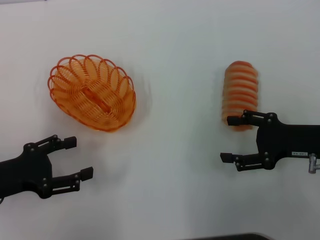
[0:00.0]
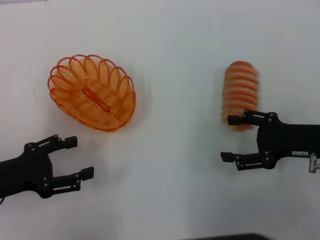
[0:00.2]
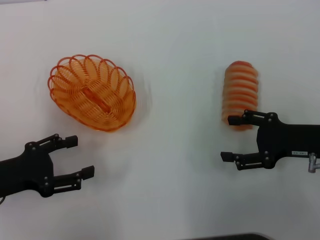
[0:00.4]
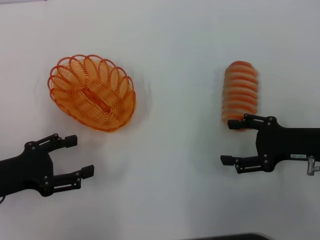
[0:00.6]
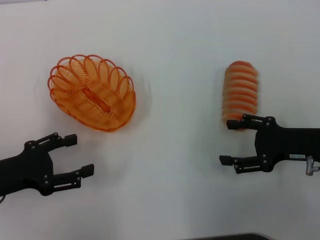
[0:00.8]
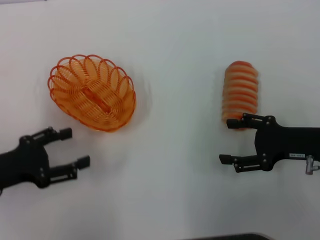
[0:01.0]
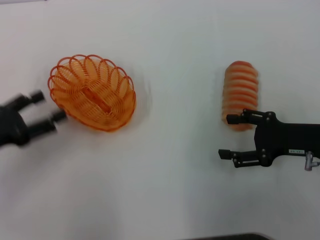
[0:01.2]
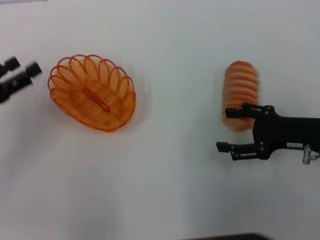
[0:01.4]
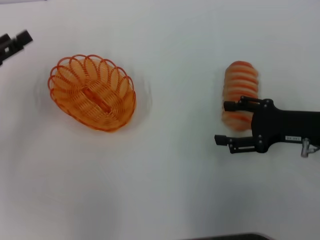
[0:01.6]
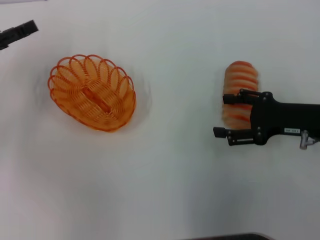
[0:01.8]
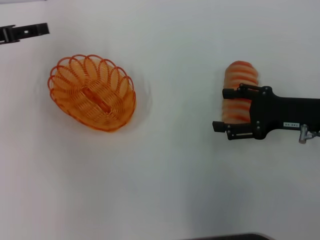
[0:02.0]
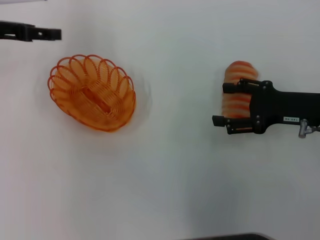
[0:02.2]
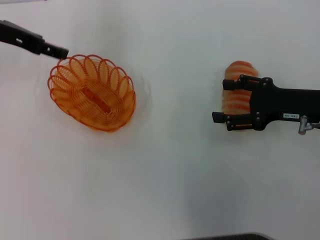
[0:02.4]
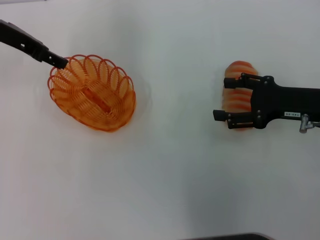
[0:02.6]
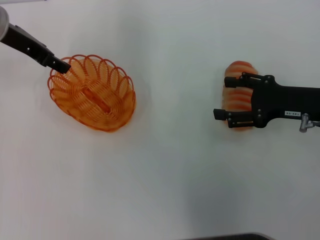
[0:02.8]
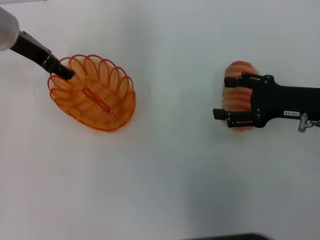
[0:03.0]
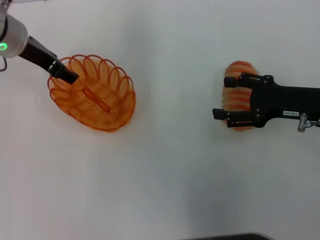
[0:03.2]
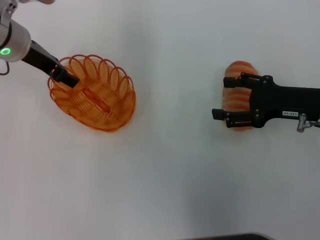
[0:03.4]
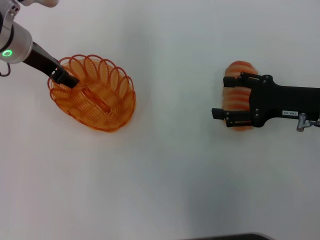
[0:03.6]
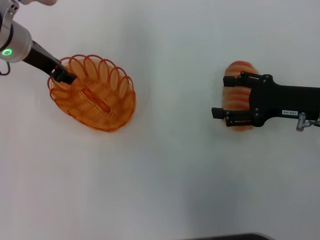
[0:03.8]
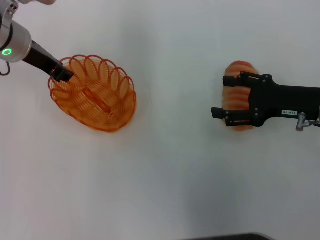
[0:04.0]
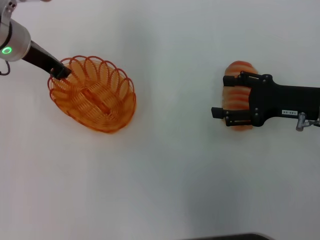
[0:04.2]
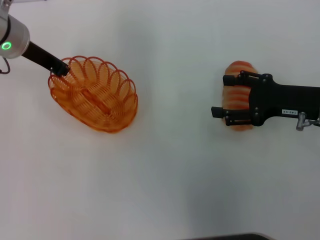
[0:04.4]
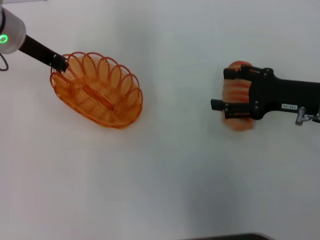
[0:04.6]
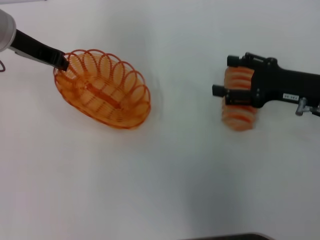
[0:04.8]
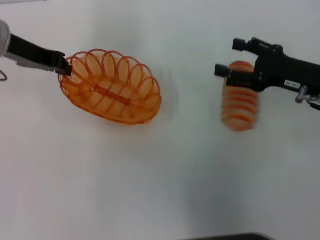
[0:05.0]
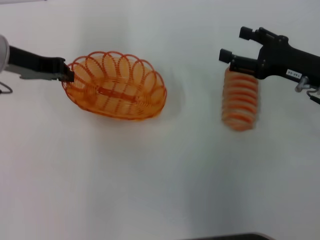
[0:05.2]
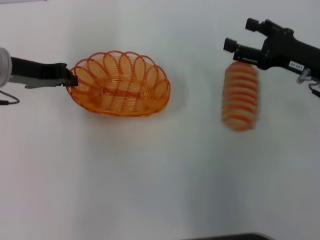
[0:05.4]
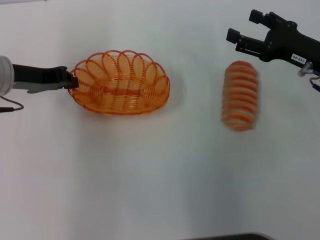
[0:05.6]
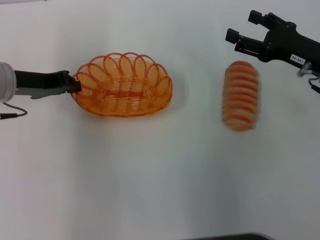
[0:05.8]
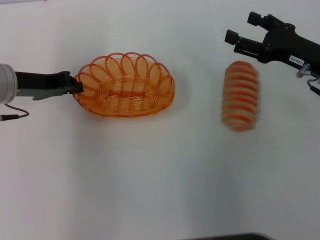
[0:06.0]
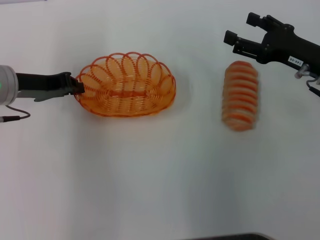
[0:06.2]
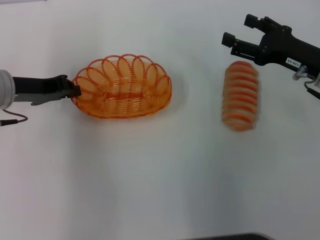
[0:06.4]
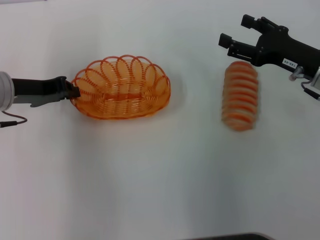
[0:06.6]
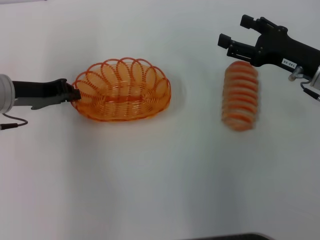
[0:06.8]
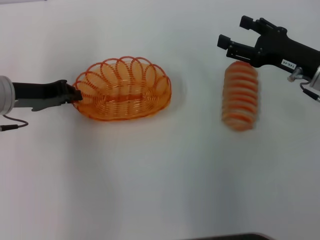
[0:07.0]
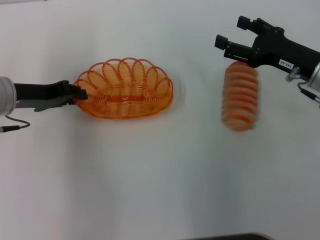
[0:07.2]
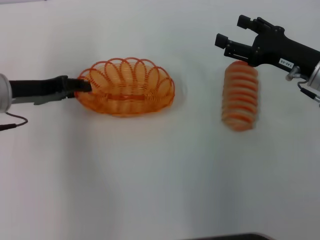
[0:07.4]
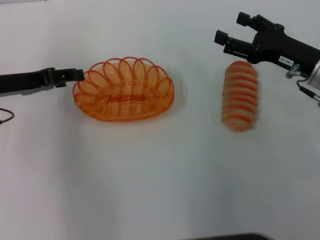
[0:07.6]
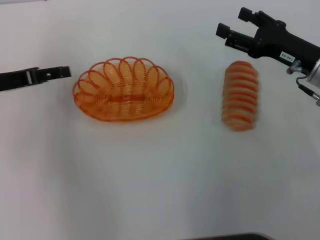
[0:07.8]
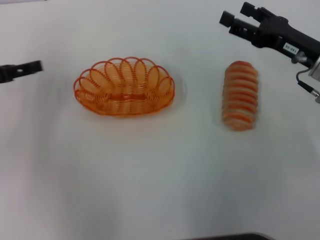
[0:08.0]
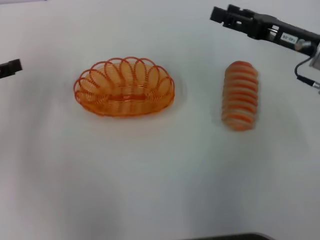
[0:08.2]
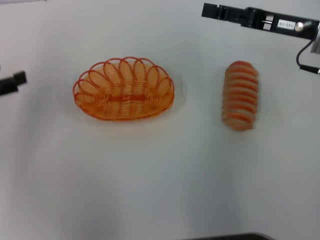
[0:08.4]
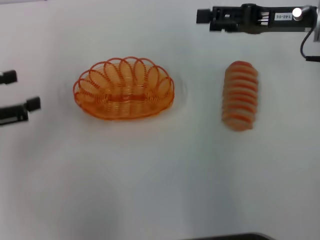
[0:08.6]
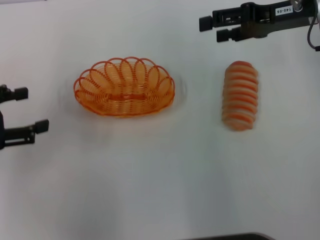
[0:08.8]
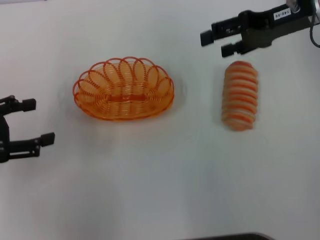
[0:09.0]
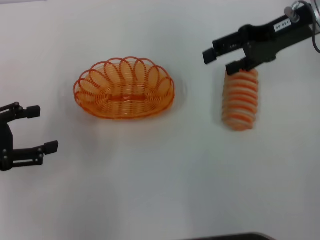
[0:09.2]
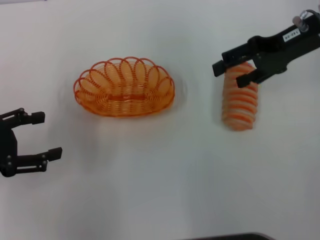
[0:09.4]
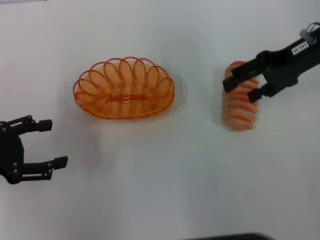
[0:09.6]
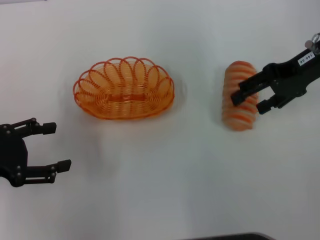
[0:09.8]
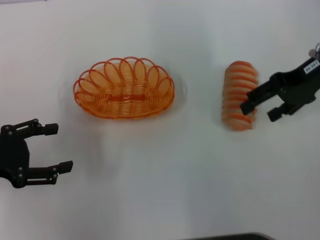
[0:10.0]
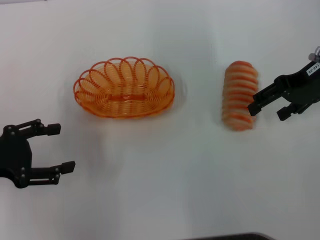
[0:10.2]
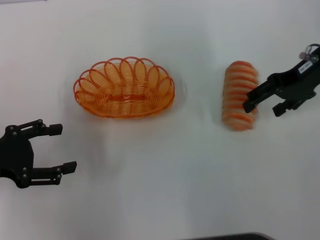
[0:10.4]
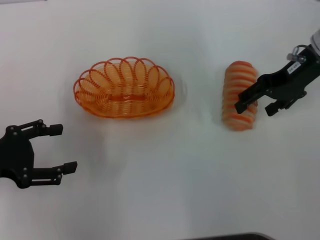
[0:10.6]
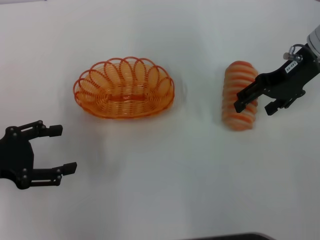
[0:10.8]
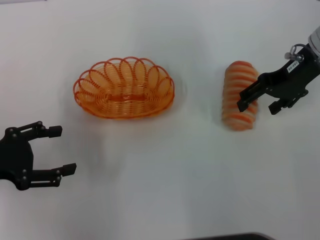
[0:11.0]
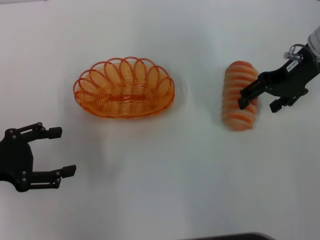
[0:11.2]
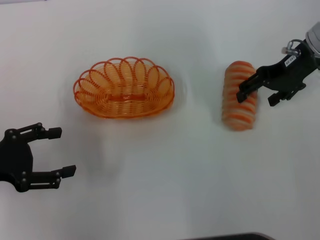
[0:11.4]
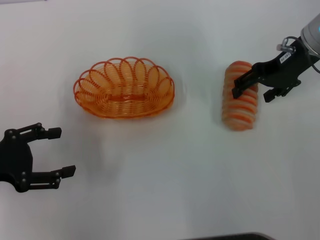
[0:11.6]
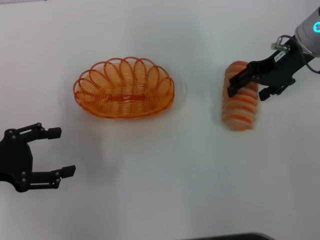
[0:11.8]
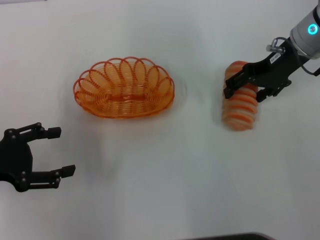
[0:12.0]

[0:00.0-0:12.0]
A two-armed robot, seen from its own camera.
Step, 0.0 to 4.6 s: Pick up the basket with the left gripper.
Step, 4.8 to 7.6 s: Place the basket in the center of view with the left gripper.
0.0 to 1.6 s: The left gripper heads forward, covering some 10 cm.
1.6 to 3.0 s: The left gripper moves to the right, forward and upward, some 20 cm.
3.0 to 4.4 s: The left gripper closes up.
4.4 to 6.0 s: The left gripper moves backward, some 5 cm.
6.0 to 7.6 s: The left gripper opens.
7.6 to 9.0 s: The left gripper goes approximately 10 cm backward and to the left, and opens up; the right gripper is displaced upward and forward by about 15 cm.
10.4 to 12.0 s: The grippers stay close to where they were, moving slightly.

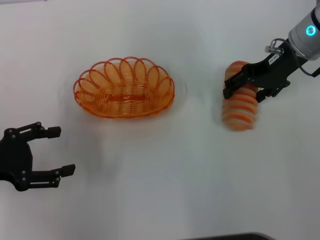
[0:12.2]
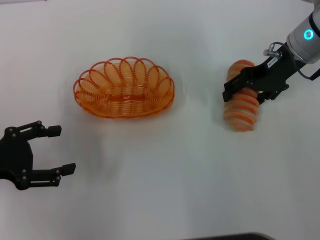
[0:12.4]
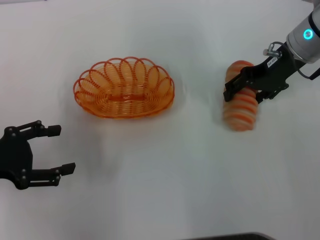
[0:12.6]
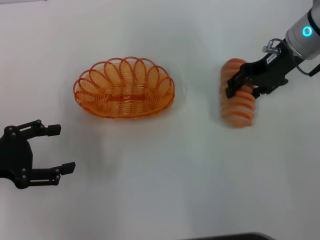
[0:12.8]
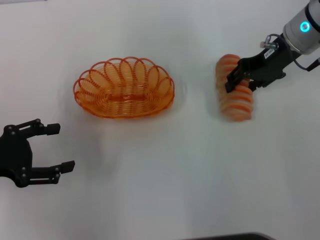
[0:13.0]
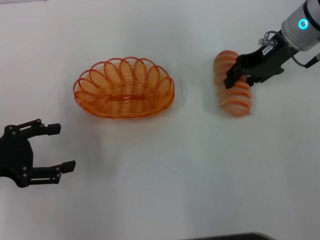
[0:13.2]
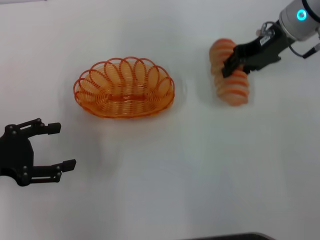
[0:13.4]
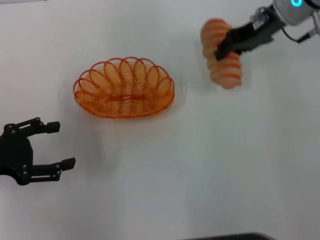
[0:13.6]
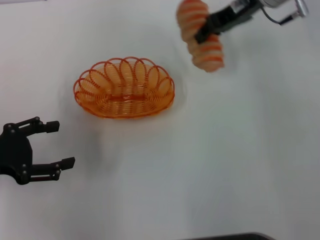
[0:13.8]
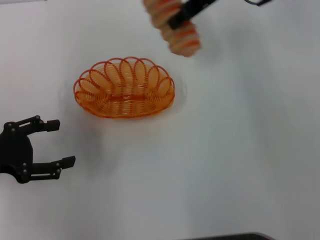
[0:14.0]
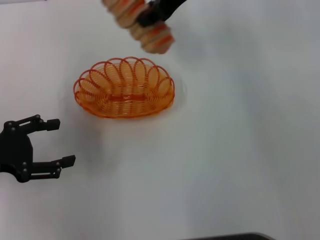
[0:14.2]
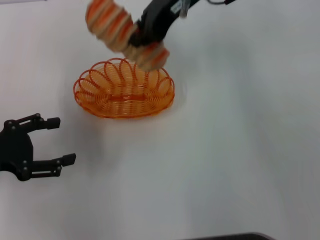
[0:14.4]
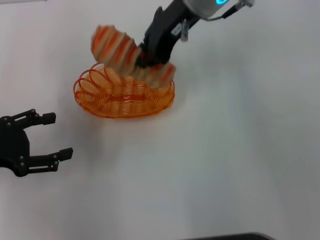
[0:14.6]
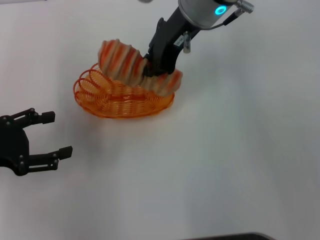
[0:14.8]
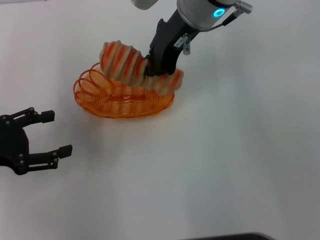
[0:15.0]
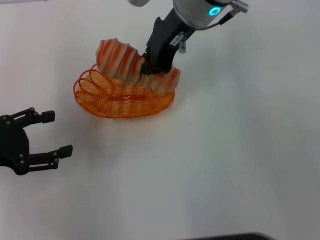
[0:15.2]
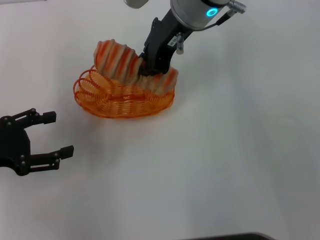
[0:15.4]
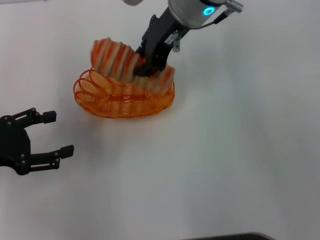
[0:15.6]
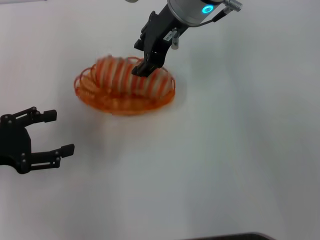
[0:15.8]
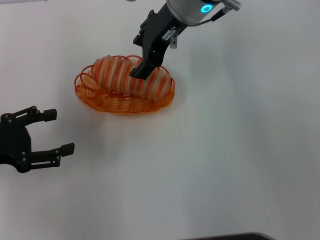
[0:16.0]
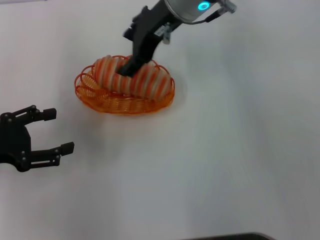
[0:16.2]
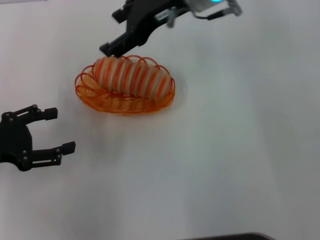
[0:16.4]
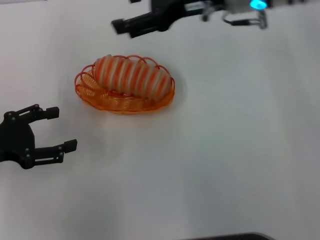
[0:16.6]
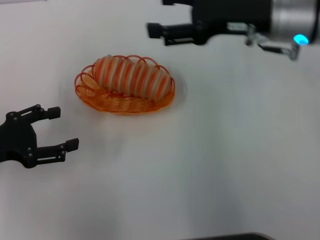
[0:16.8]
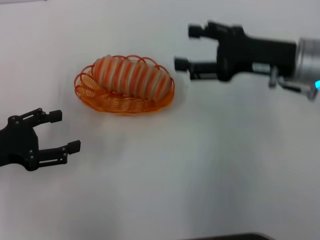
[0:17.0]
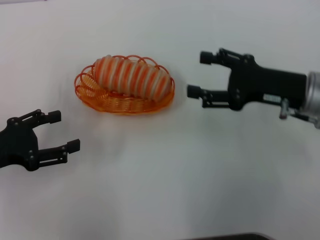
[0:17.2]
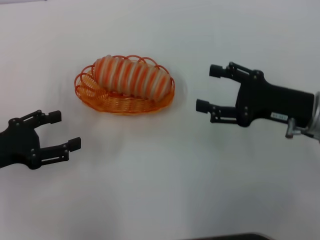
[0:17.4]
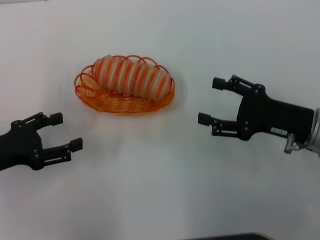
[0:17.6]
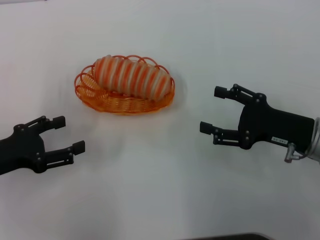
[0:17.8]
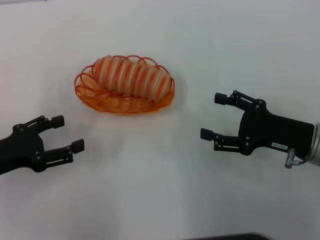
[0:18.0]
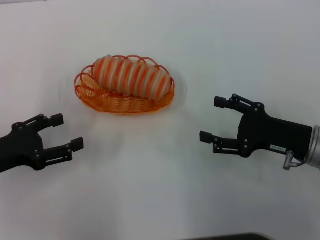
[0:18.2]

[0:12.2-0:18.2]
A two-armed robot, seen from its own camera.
Step, 13.4 to 16.2 s: Place the long bread into the basket with the right gripper.
12.2 to 13.8 s: The right gripper travels to the left and upward by some 10 cm, and closes its fingers.
13.8 to 15.2 s: The right gripper heads to the left, covering roughly 10 cm.
15.2 to 16.6 s: The right gripper shifts some 10 cm to the right, and opens.
16.6 to 18.2 s: The right gripper travels backward, downward and to the right by about 25 cm.

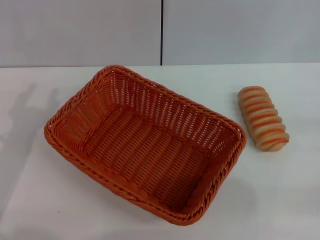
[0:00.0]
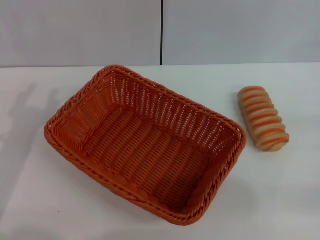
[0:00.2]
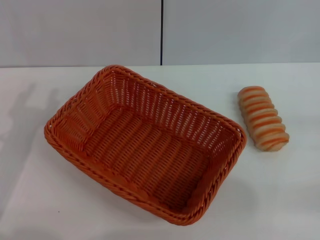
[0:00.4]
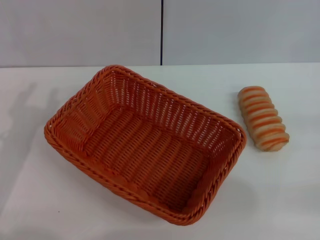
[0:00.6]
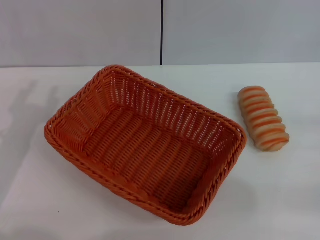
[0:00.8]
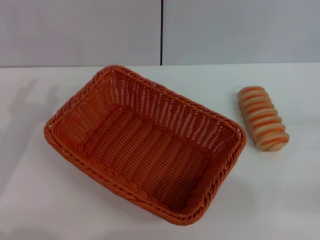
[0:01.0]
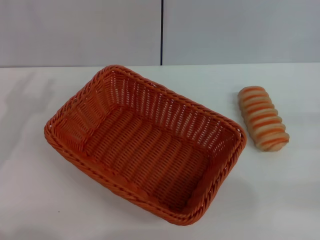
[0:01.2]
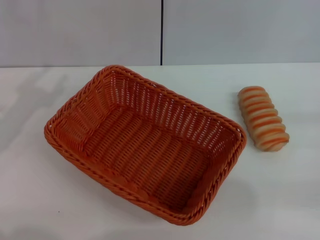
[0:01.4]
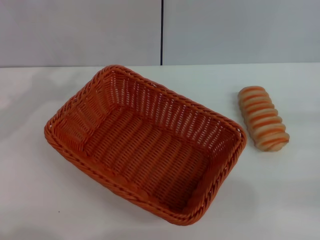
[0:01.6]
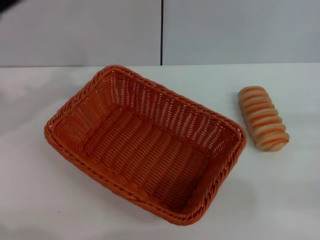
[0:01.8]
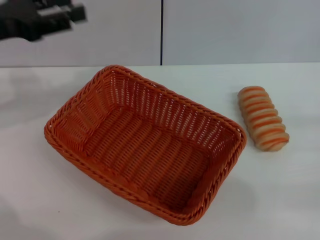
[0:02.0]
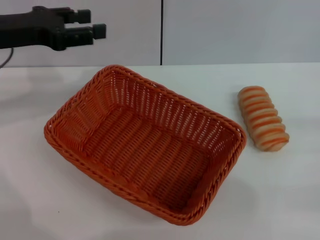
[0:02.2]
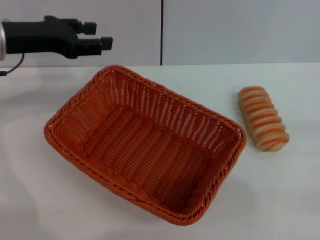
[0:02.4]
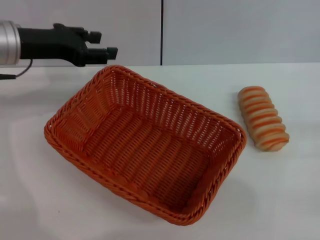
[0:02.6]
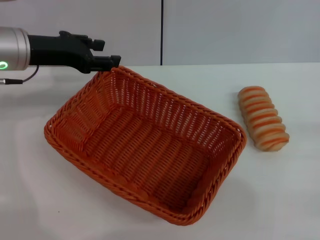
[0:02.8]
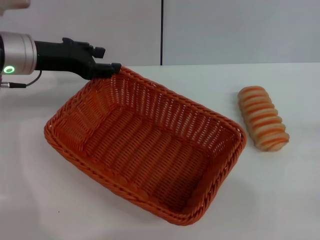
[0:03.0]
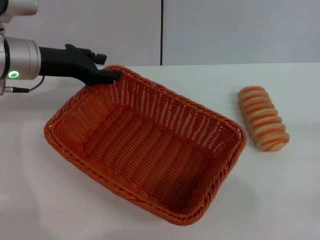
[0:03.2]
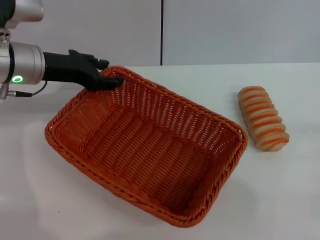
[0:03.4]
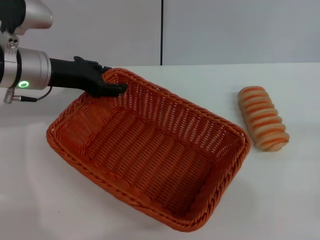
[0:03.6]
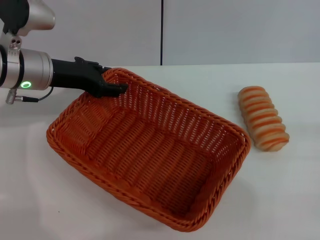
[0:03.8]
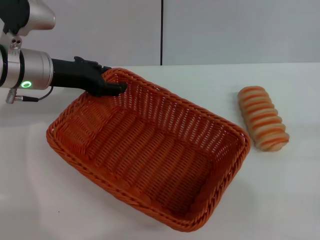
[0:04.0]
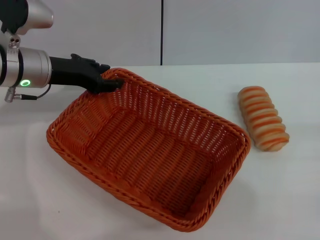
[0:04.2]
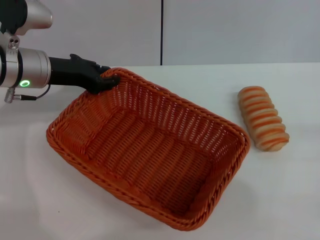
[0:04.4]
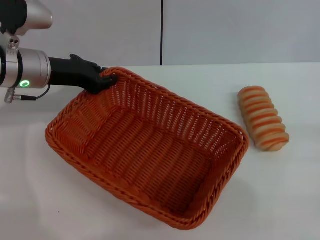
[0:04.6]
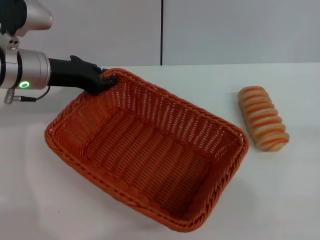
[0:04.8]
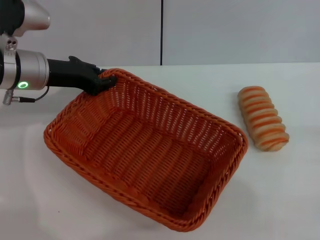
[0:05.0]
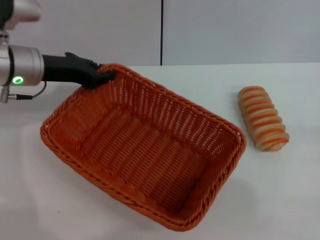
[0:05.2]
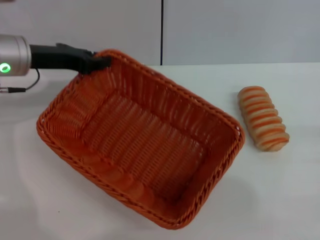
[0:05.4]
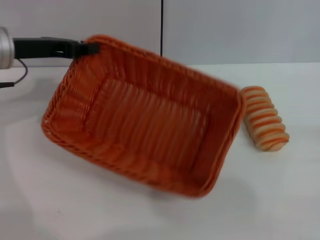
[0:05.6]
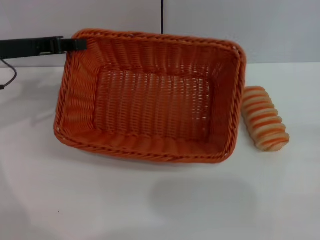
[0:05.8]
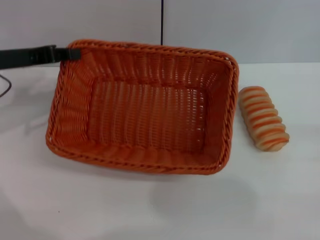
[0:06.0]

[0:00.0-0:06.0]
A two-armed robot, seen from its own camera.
Step, 0.0 to 5.4 s: Pick up the light basket with the left gripper.
1.6 to 3.0 s: The left gripper is displaced to the right and forward by approximately 15 cm.
3.0 to 4.4 s: The grippers make only small movements.
4.4 to 6.0 s: The left gripper shifts some 5 cm to the left, and closes its fingers.
